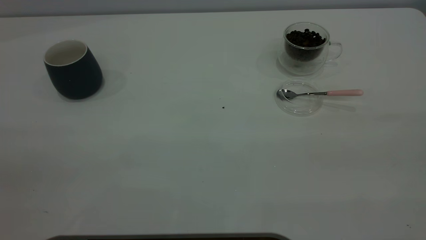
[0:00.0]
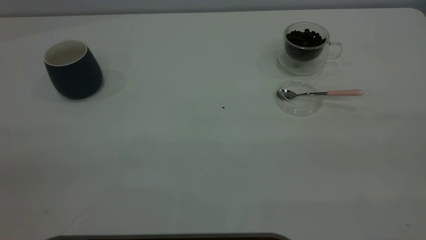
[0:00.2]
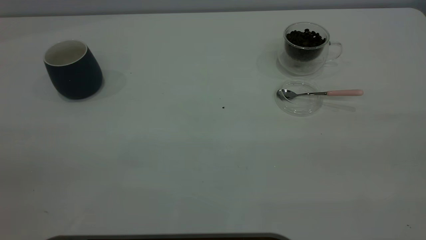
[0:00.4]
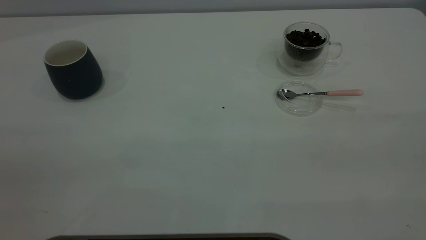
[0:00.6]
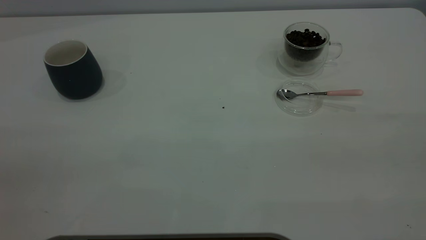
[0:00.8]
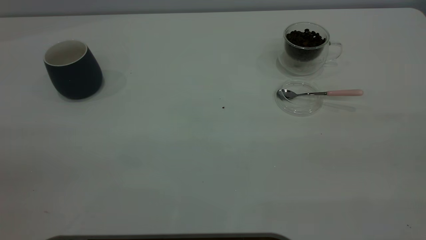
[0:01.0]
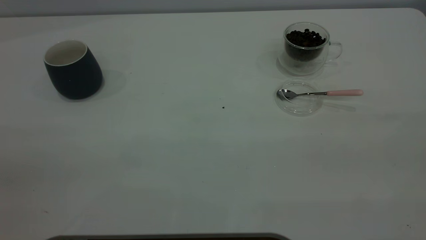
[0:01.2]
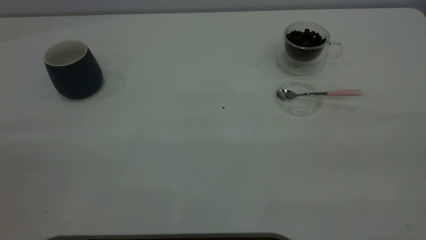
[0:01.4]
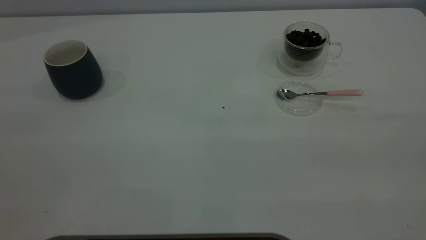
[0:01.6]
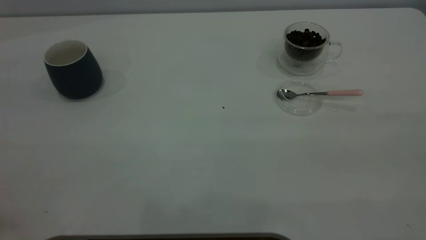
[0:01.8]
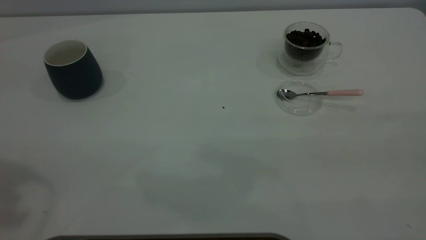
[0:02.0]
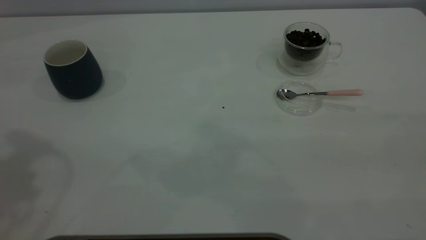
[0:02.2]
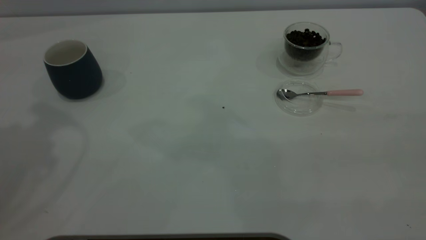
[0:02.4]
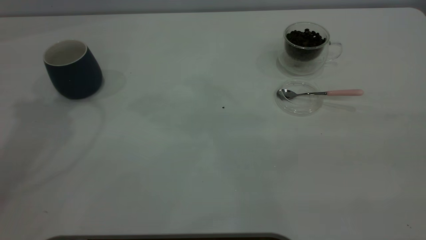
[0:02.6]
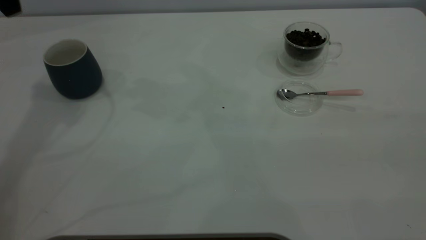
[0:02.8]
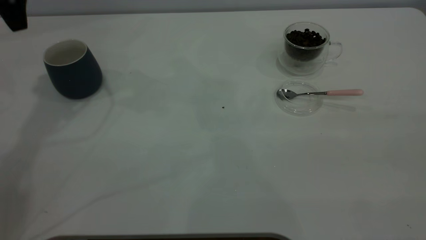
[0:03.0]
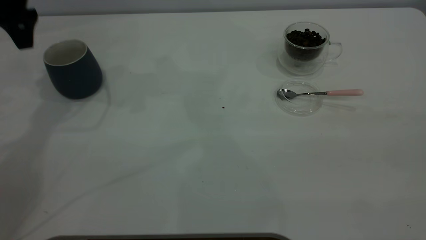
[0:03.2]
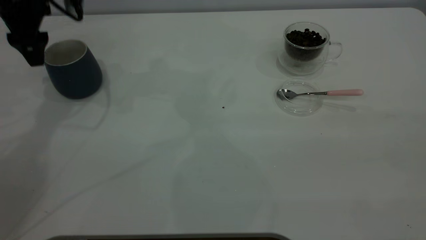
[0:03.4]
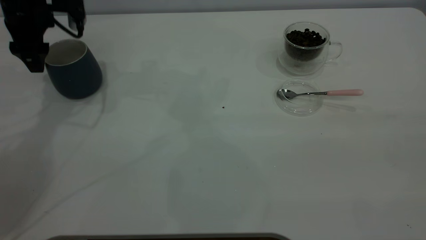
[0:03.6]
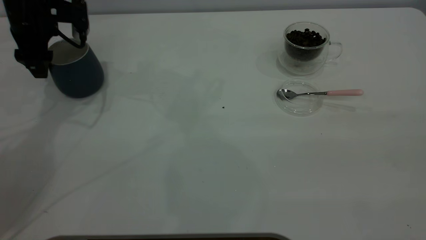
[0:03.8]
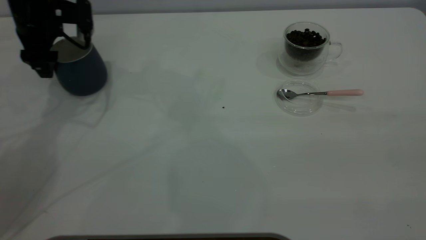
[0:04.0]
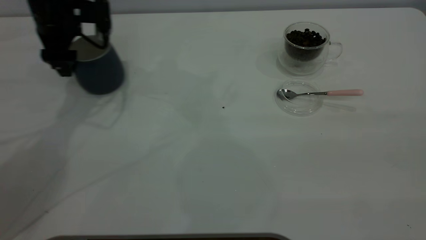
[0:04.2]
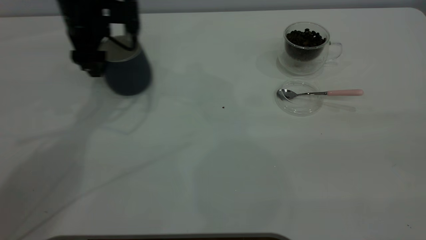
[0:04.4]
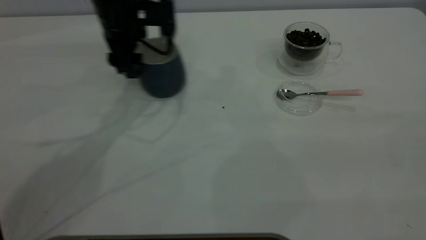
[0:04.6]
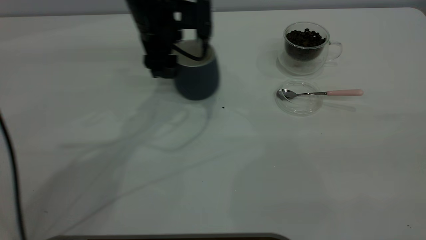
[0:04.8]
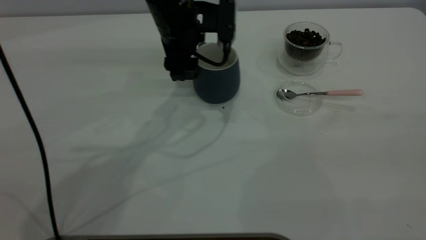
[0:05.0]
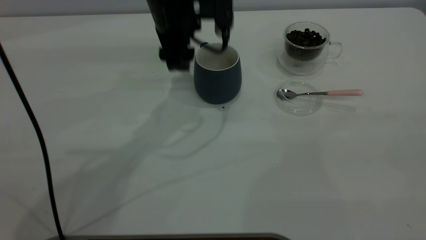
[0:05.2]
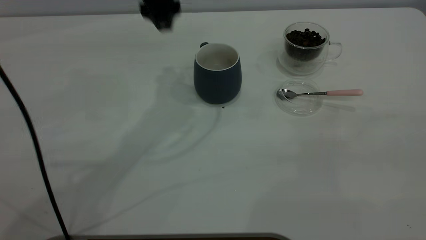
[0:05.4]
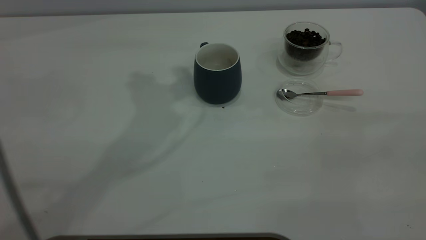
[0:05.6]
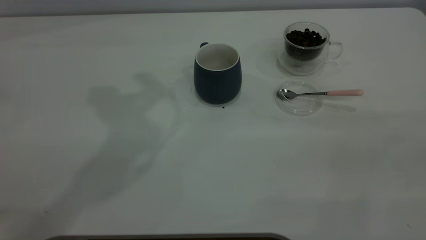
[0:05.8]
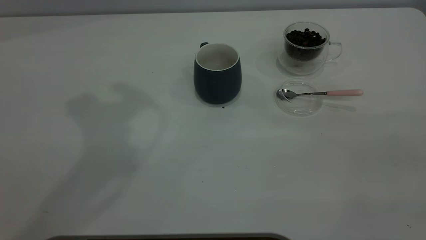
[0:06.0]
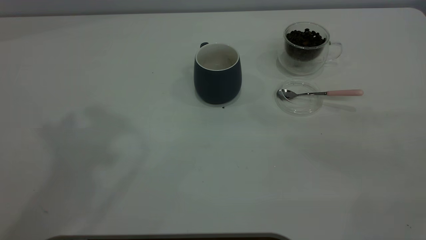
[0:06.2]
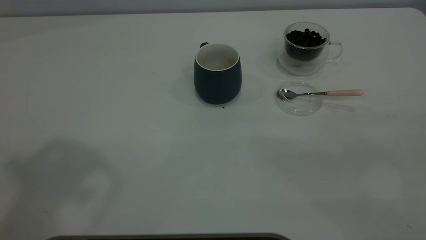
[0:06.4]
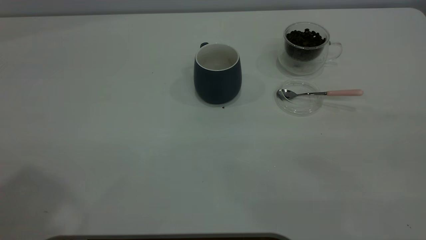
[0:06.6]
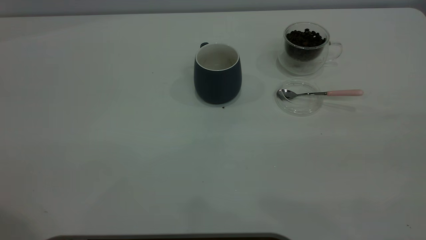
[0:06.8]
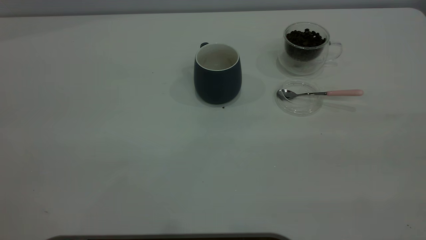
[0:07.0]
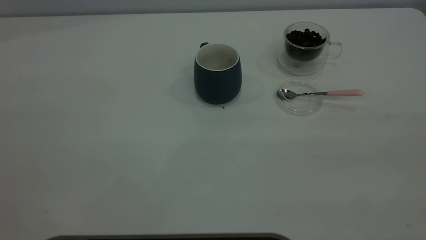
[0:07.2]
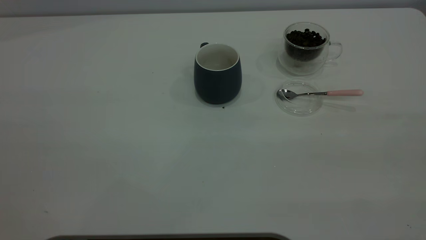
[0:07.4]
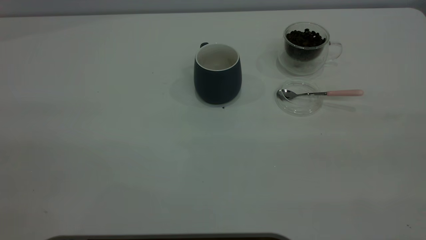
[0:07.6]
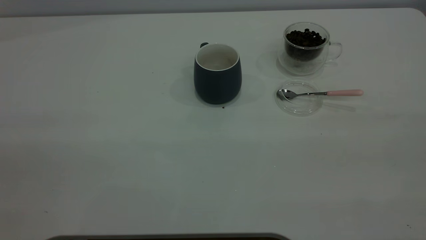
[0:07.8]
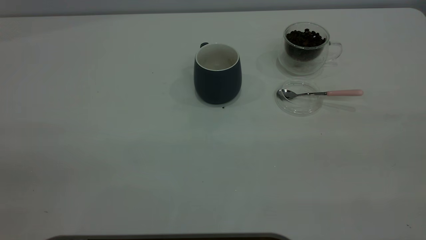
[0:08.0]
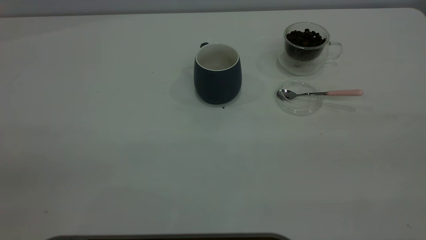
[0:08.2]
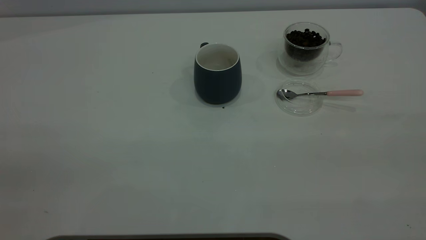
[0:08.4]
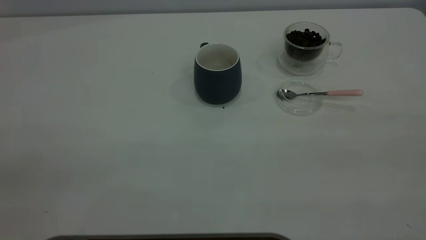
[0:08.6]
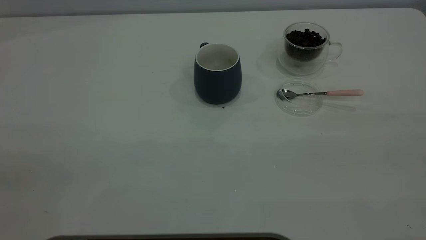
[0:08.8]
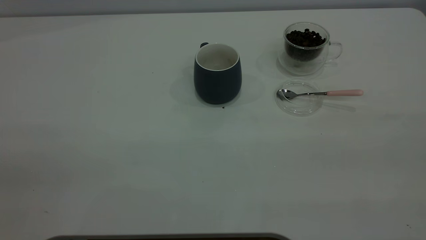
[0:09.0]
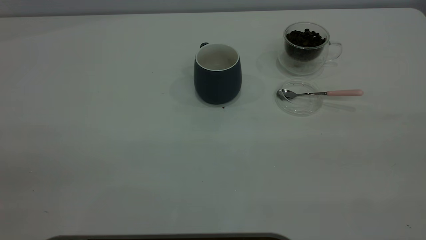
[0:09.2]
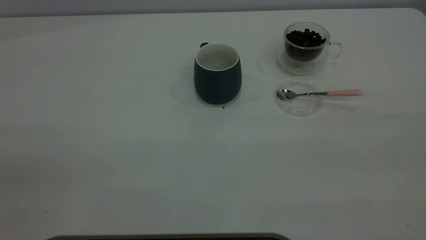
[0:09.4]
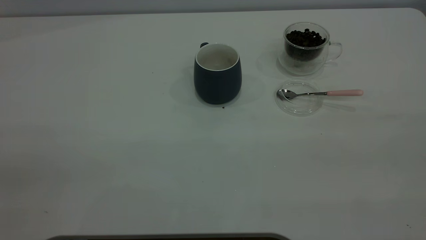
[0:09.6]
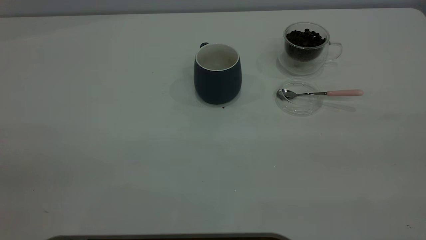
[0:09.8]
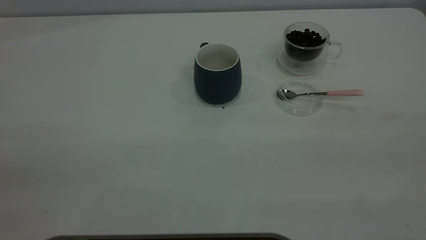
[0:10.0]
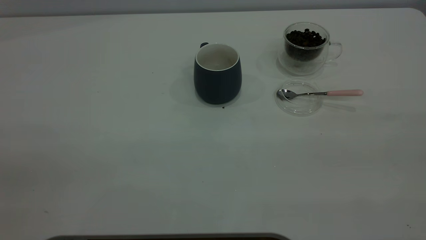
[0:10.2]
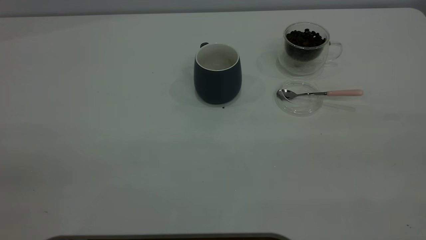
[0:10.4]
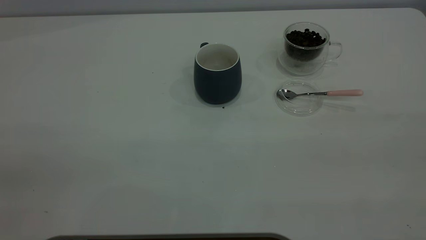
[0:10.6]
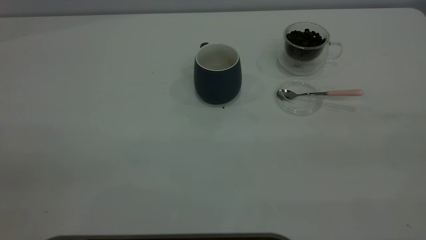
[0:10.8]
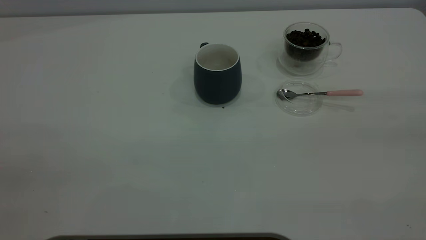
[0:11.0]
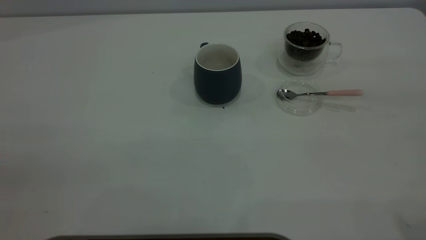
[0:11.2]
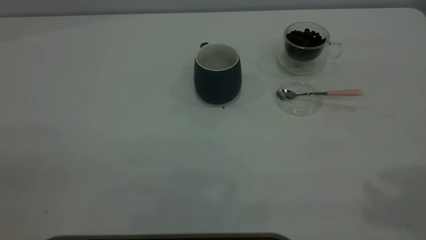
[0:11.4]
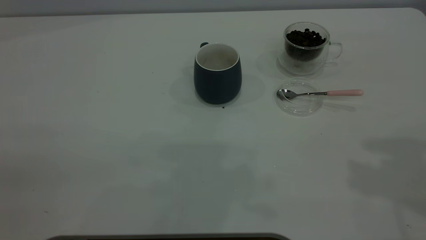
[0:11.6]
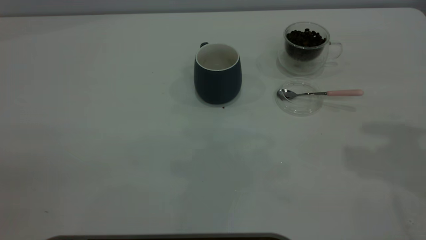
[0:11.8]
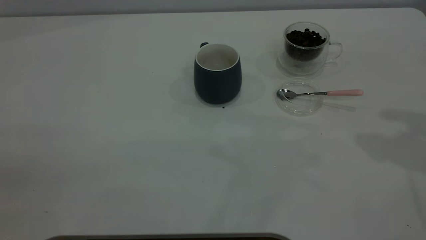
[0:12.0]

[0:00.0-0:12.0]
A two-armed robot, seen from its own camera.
Task of the whole recording: the left gripper place the grey cup in the center of the table, the right gripper take the pink spoon from the cup lid and scoop out the coffee beans from the coffee cup and put them into the grey cup, the right gripper put the spoon back into the cup lid.
Step, 0:00.0 to 0:05.2: Move the cup to the center of view.
0:01.6 to 0:03.0: The left gripper travels forward and downward by roughly 40 cm.
0:03.0 to 0:04.4: The left gripper goes about 15 cm downward and to the right.
0:04.4 to 0:06.0: The left gripper moves upward and backward, roughly 35 cm.
0:09.0 to 0:10.4: Both grippers stay about where they are.

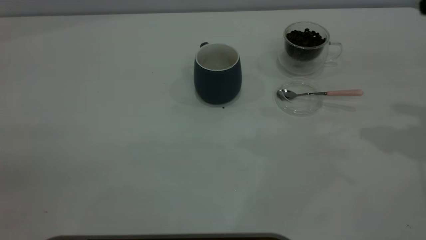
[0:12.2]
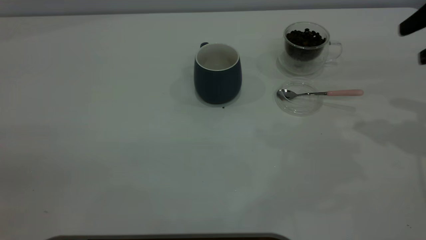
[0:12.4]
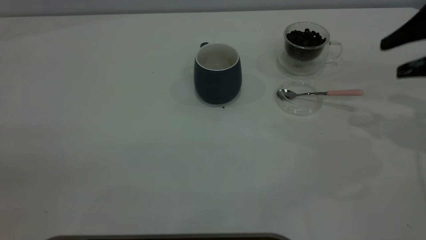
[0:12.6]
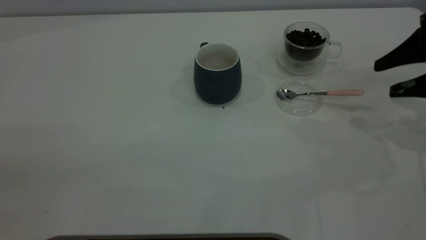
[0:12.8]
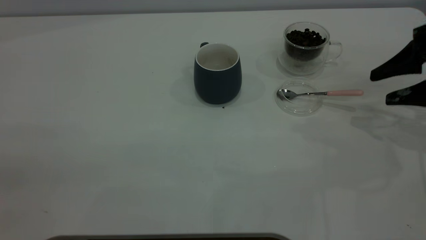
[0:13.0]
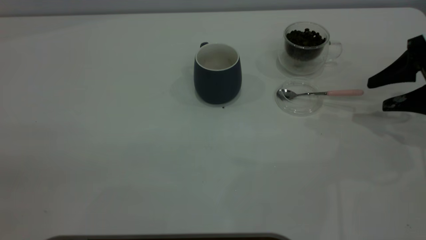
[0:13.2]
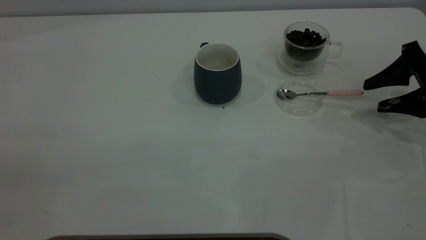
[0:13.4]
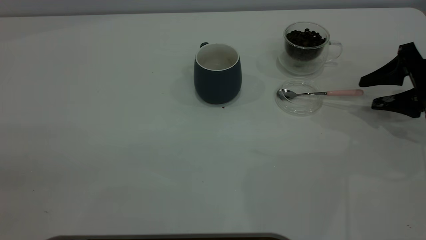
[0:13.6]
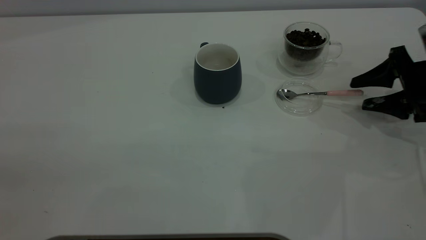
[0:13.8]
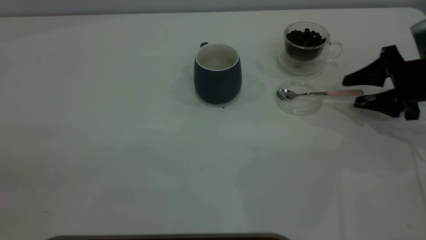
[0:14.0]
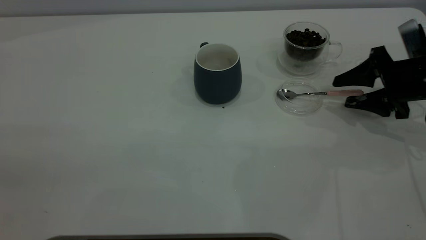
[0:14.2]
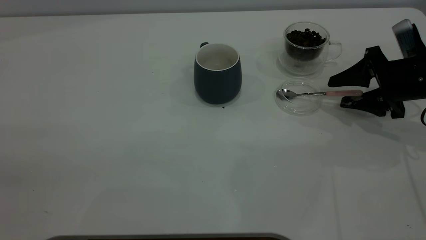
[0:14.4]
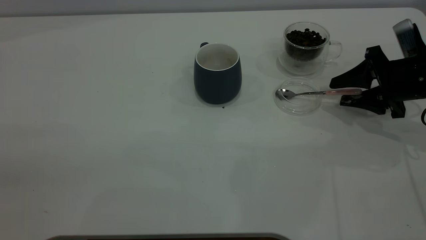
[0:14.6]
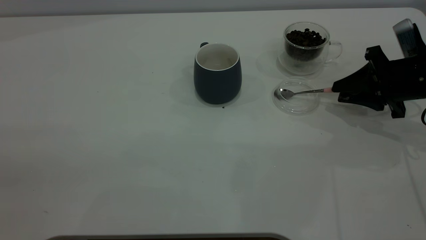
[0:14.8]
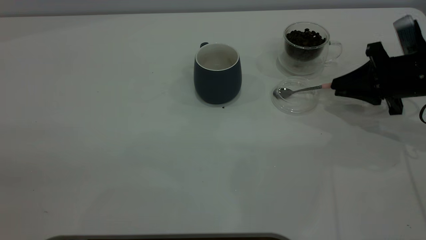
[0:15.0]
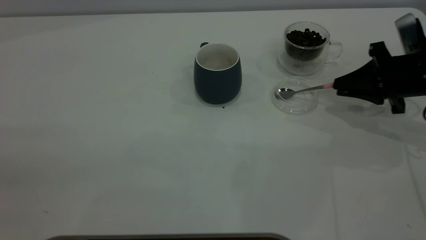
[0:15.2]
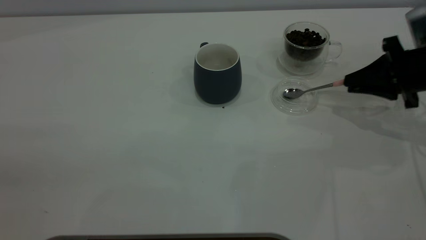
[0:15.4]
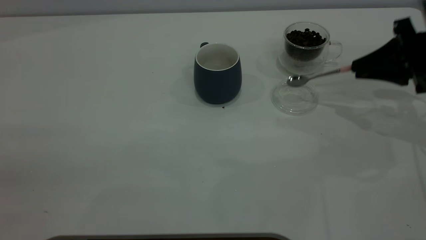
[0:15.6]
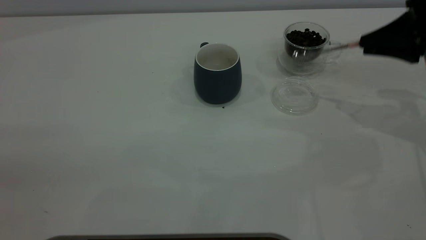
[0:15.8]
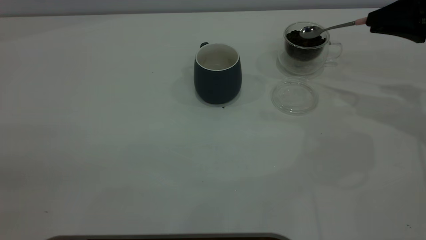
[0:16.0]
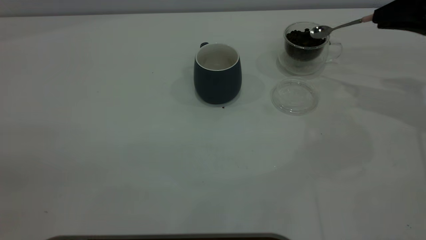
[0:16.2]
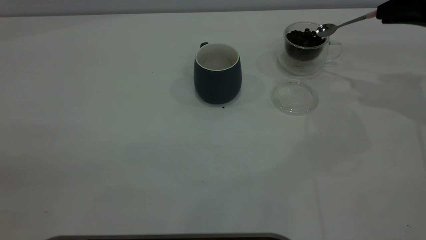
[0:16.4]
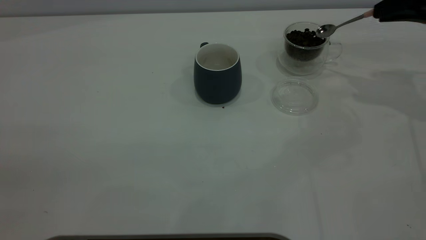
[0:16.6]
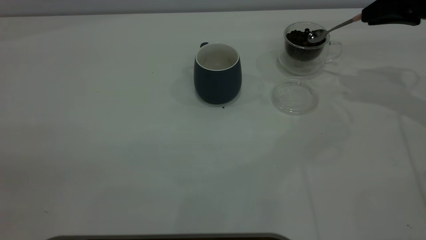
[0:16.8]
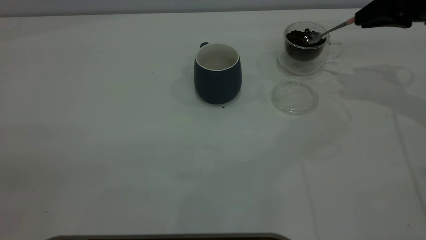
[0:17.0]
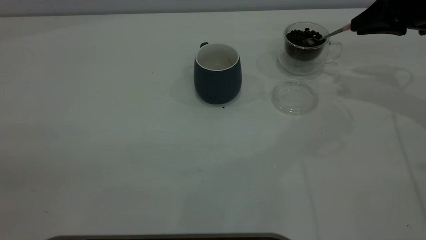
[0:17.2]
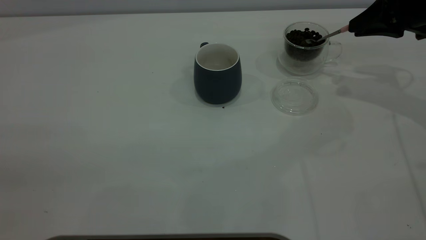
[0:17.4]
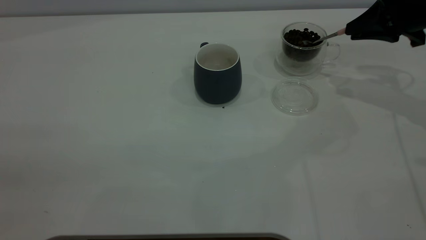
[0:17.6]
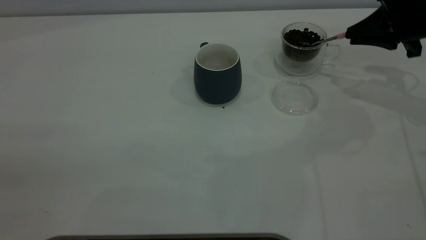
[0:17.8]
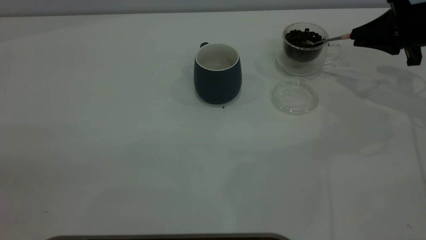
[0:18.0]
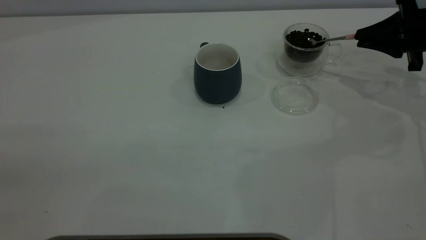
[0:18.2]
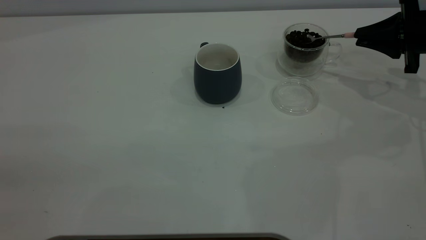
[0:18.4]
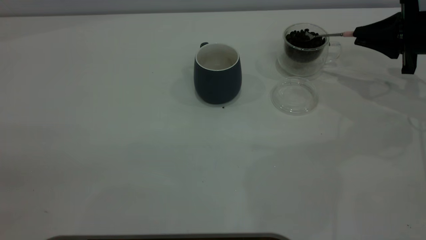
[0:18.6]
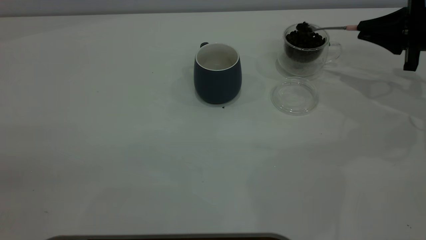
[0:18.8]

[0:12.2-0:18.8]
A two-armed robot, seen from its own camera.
Task of the whole recording: the left gripper place the grey cup in the center of the table, the right gripper take the pink spoon from the cup lid and scoop out the coffee beans from the coffee cup and put them into the grey cup, the right gripper put the spoon back into the cup lid.
Step, 0:12.2 to 0:15.6: Pick up the spoon.
0:12.2 to 0:13.8: The right gripper moves downward, approximately 20 cm.
0:13.8 to 0:15.4: The right gripper closes its fingers.
0:15.4 to 0:17.2: The right gripper heads upward and forward, covering approximately 10 cm.
0:17.2 to 0:18.8: The right gripper heads downward, covering approximately 5 cm.
